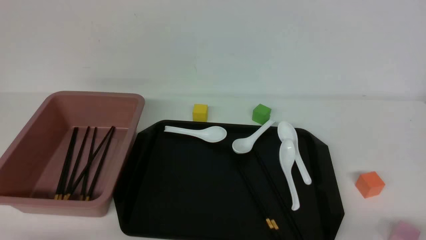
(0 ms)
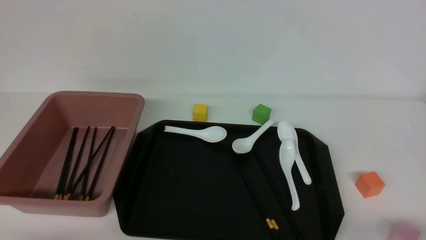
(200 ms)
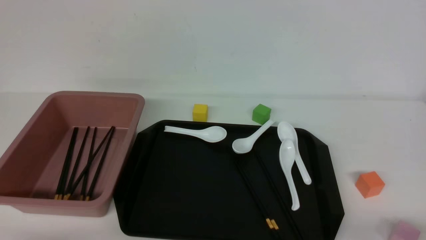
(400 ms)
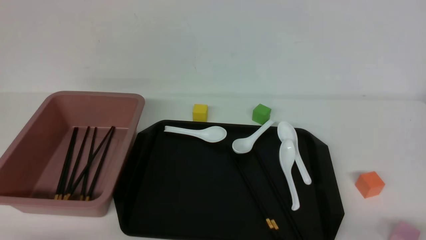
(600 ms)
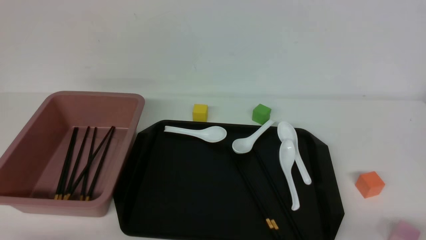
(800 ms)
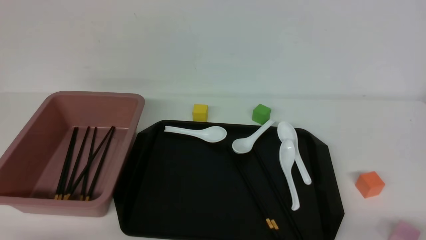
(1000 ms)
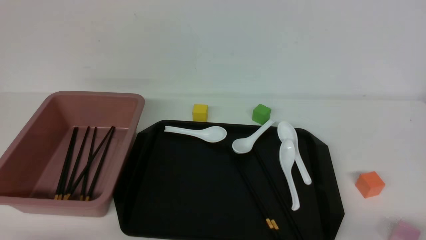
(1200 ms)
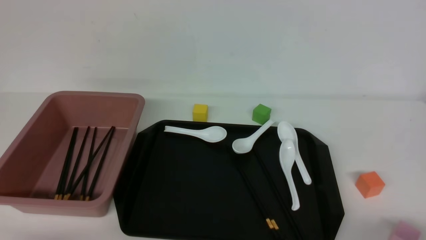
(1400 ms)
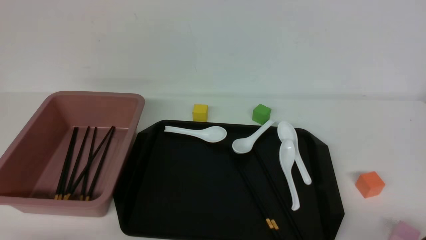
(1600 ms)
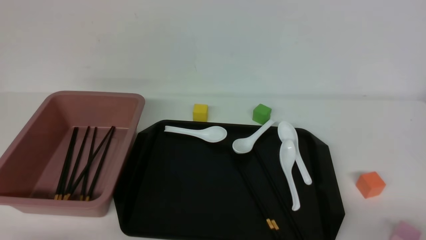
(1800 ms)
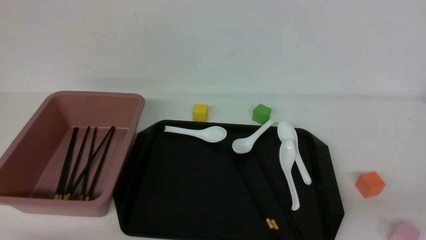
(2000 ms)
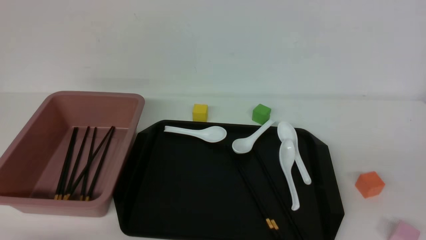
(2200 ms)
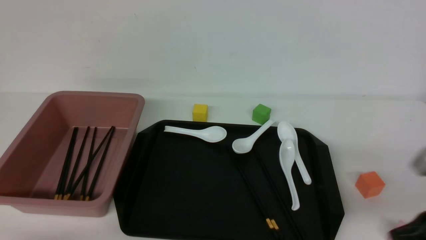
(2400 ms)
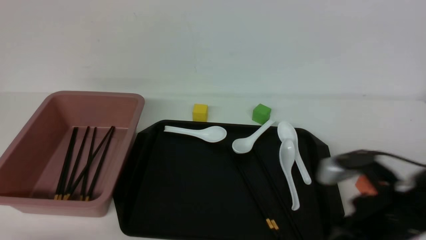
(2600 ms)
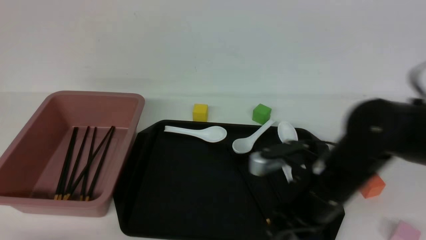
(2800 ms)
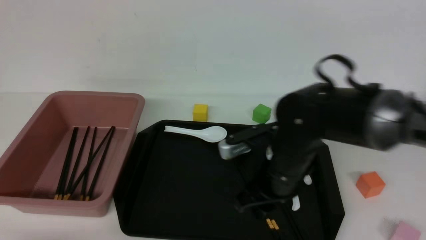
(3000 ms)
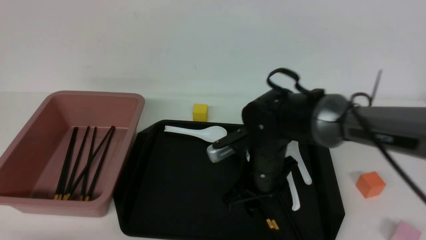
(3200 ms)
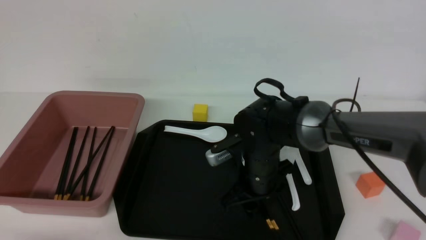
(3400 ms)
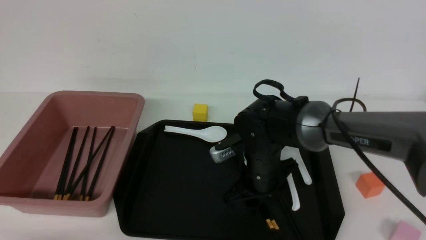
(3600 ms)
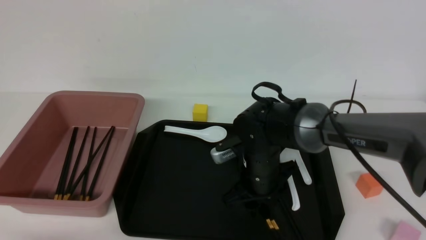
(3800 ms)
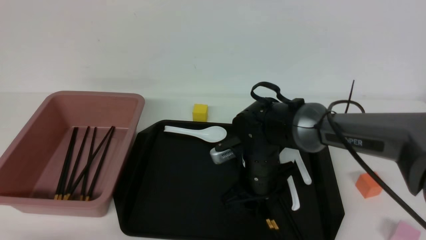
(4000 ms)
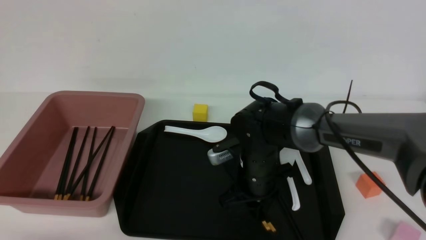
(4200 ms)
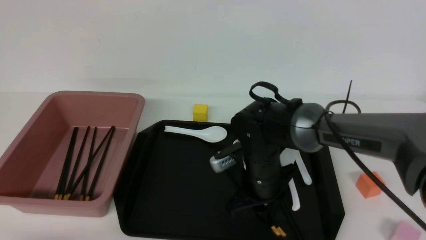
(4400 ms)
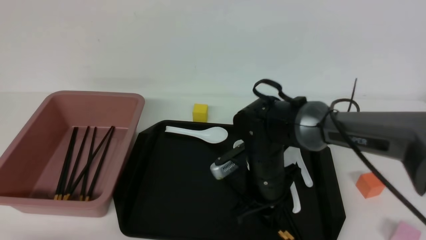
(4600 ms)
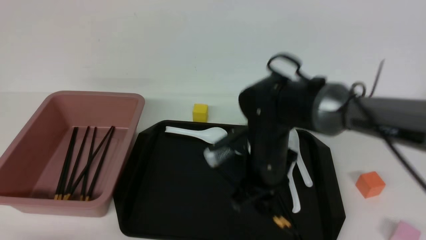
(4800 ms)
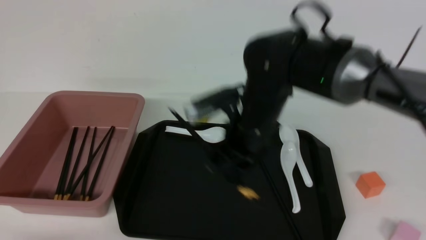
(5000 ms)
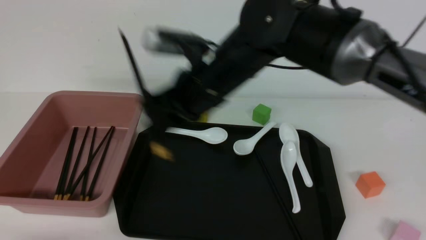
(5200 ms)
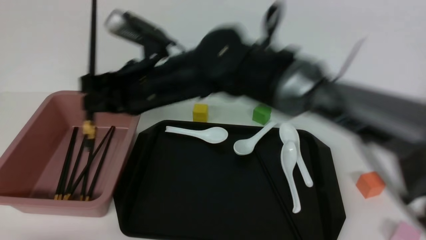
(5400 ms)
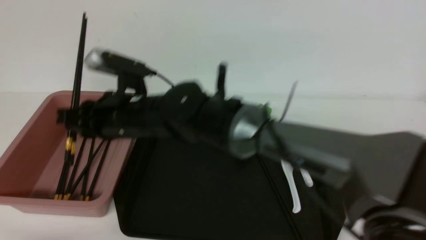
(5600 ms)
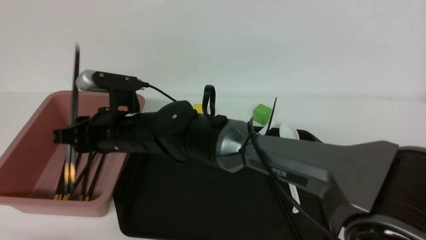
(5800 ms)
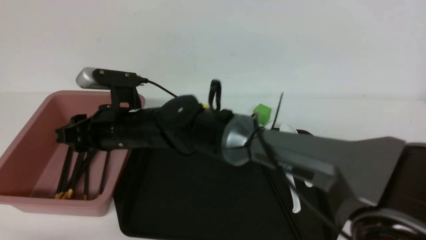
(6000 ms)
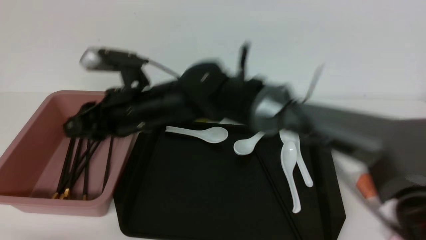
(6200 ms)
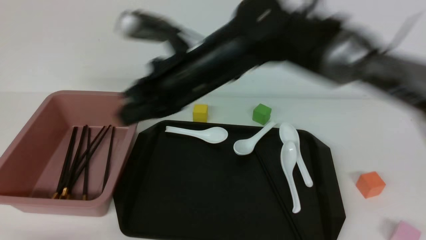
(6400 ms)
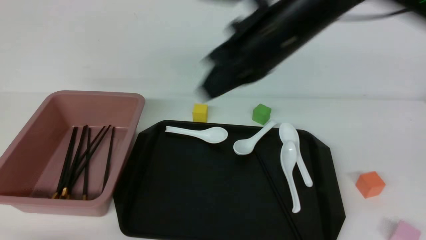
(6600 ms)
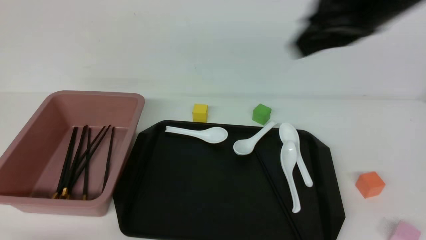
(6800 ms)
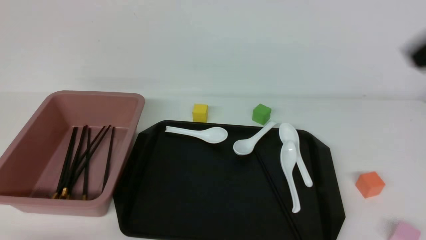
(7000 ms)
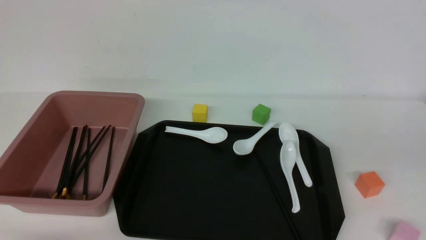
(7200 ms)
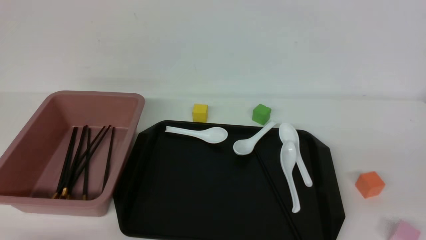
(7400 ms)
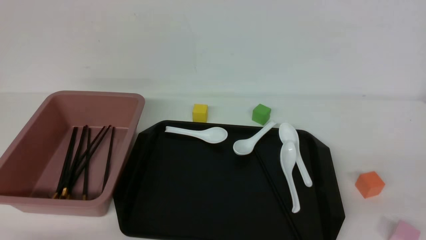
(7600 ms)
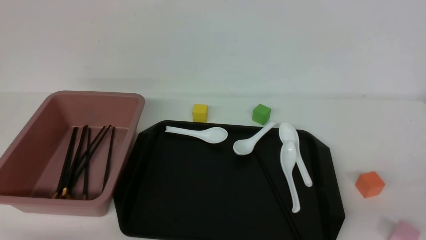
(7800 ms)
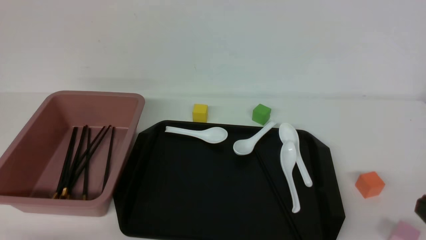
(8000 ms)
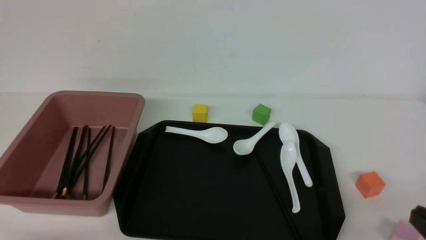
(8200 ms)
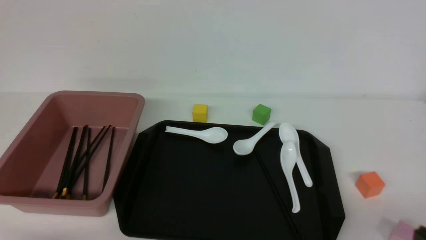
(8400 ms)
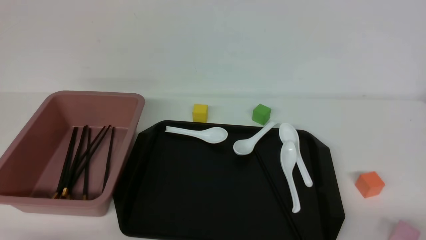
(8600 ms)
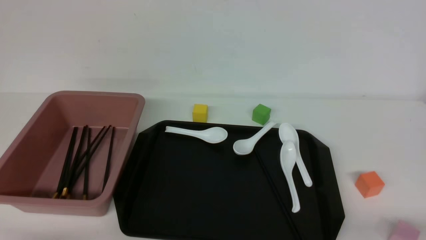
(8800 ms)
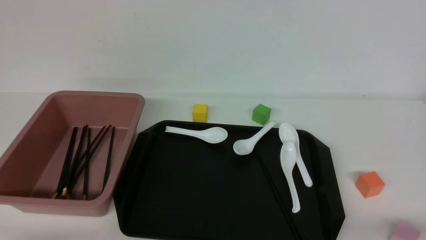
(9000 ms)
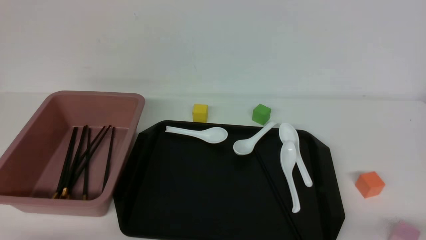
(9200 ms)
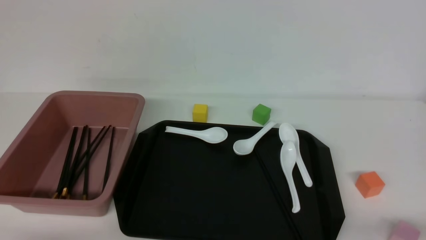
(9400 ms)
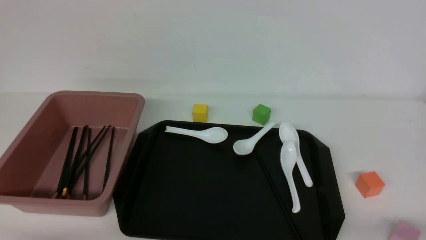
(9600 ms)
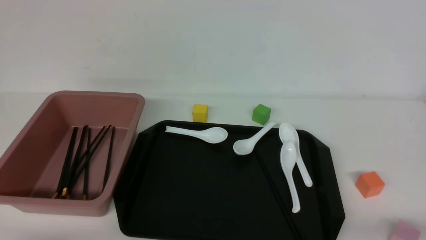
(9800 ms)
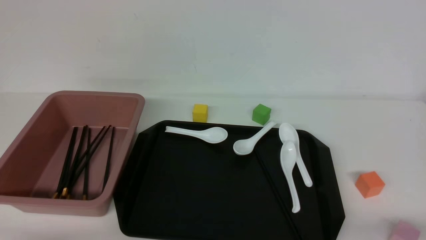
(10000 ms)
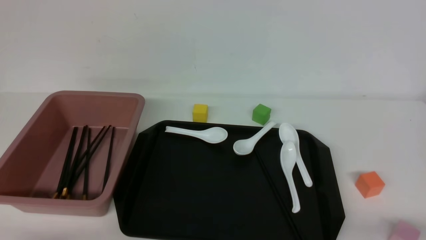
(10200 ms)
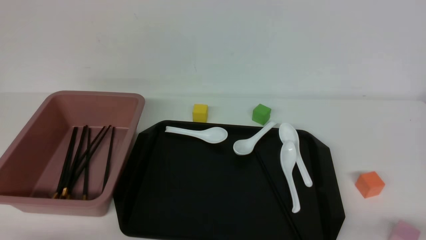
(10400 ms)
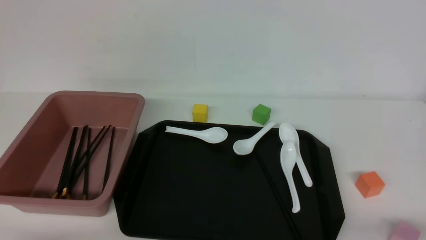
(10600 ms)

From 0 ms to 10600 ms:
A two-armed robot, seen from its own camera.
Step, from 0 ms to 4800 ms: use the right arm to grab a pair of chopsticks.
Step, from 5200 ms to 6200 ms: use the right arm to put the chopsticks into the lunch box.
From 1600 ms to 3000 ms: The right gripper travels forward and to the left by about 30 cm, and closes and opens again.
From 3000 ms to 4600 ms: The right gripper closes up.
From 4600 ms to 6000 ms: The right gripper moves to the left and upward, about 20 cm, and opens its fingers.
From 6000 ms to 7600 ms: The right gripper is displaced to the right and backward by some 50 cm, and closes its fingers.
From 9000 ms to 10600 ms: The two grippers keep their place.
